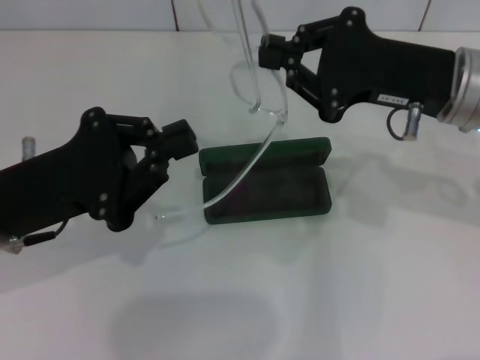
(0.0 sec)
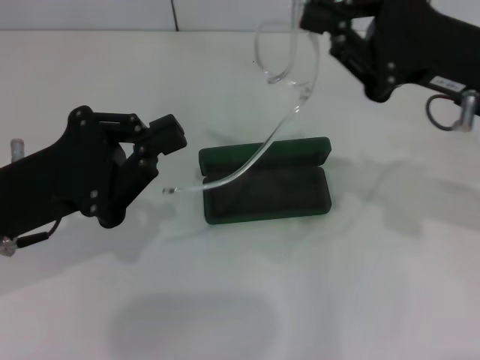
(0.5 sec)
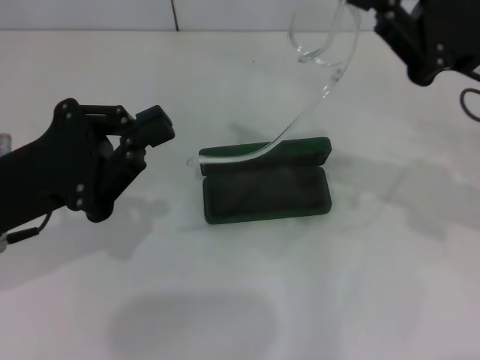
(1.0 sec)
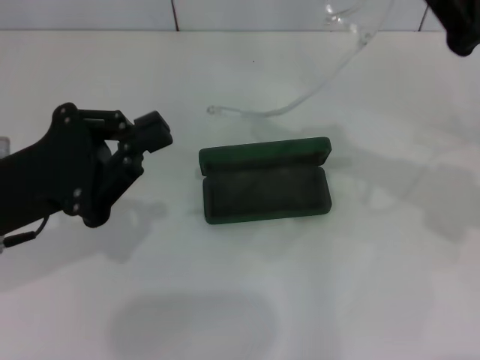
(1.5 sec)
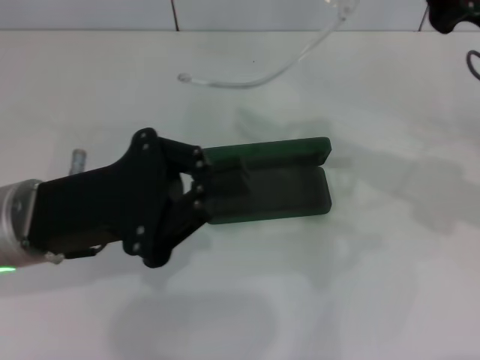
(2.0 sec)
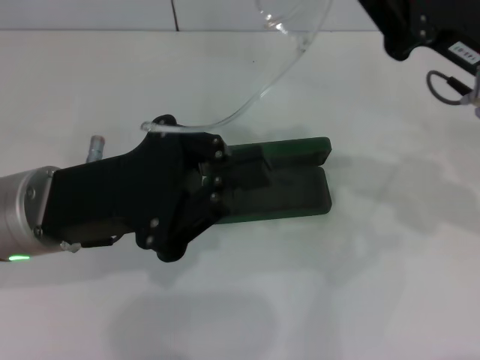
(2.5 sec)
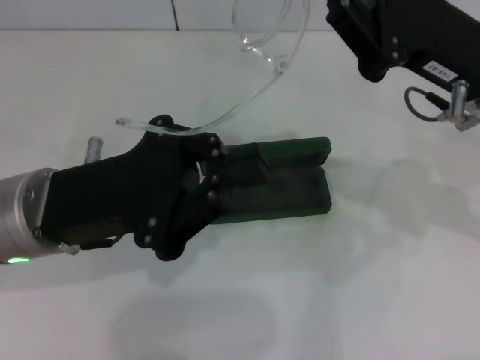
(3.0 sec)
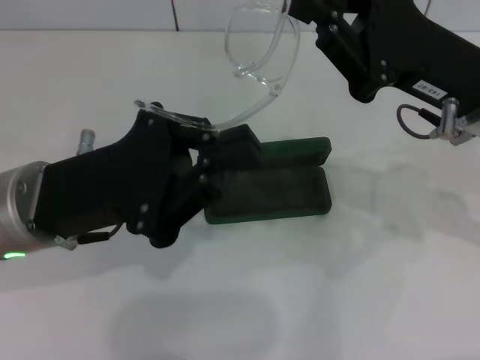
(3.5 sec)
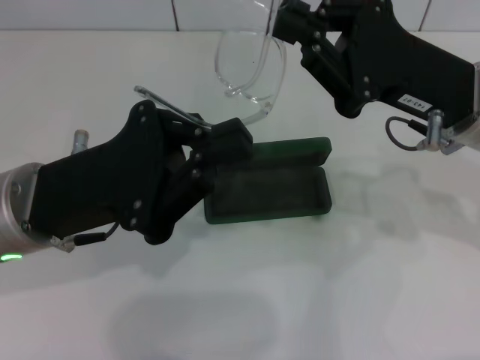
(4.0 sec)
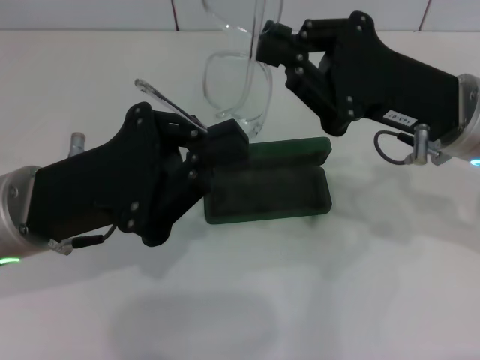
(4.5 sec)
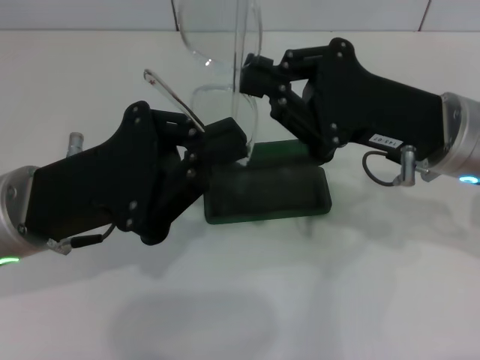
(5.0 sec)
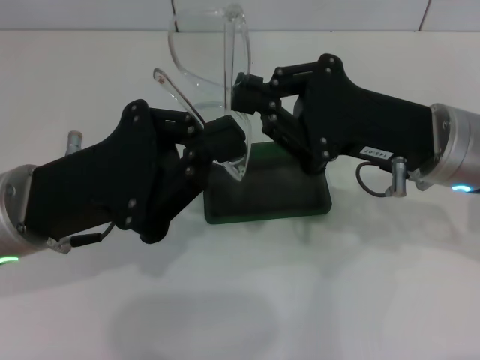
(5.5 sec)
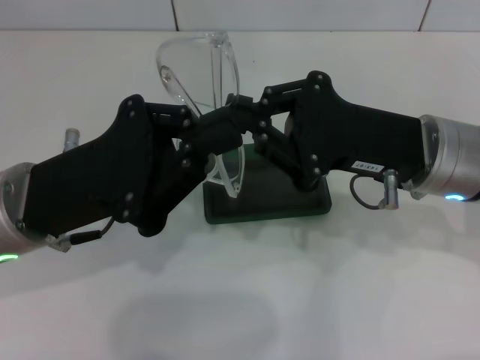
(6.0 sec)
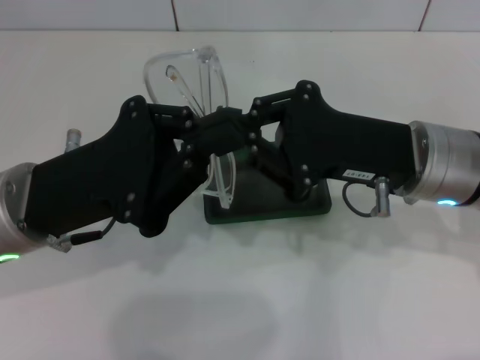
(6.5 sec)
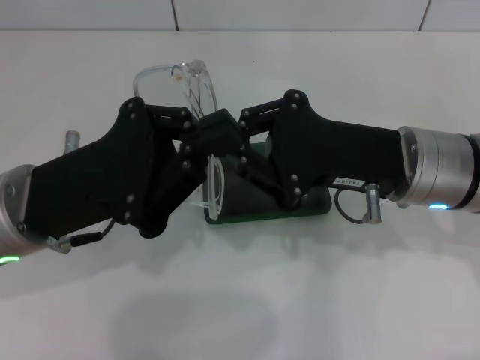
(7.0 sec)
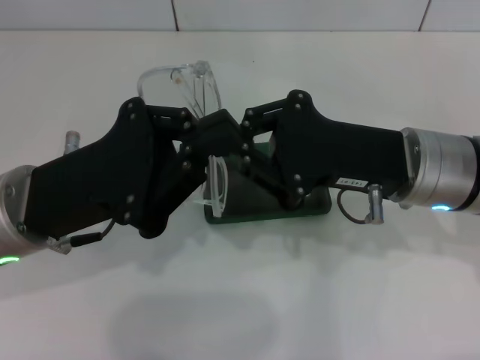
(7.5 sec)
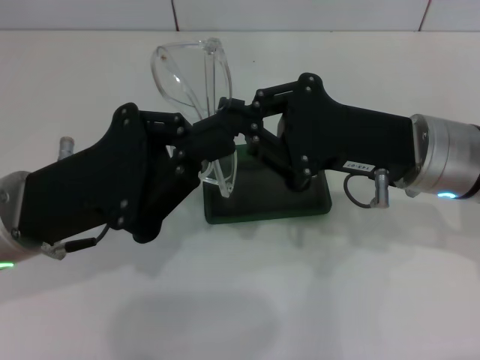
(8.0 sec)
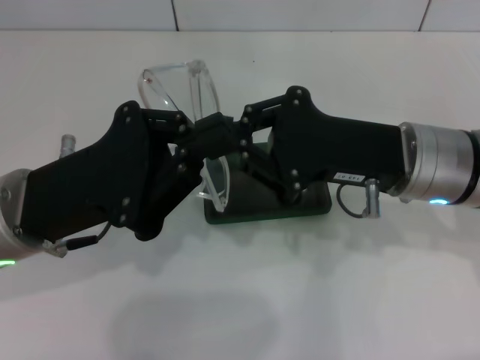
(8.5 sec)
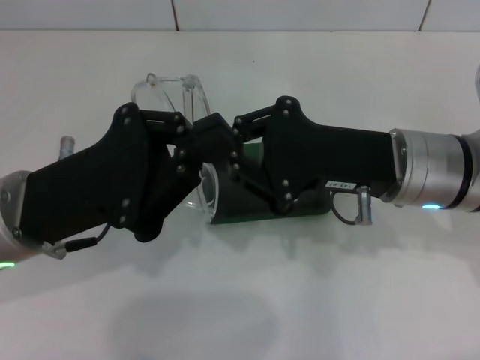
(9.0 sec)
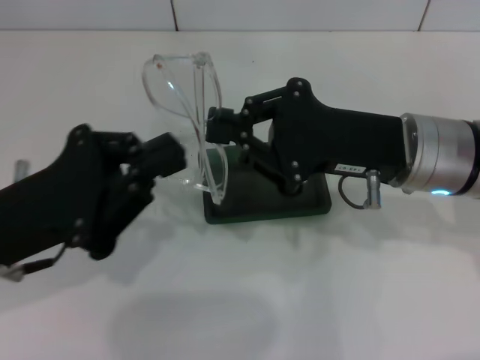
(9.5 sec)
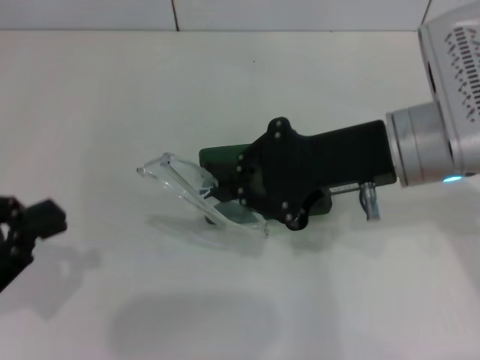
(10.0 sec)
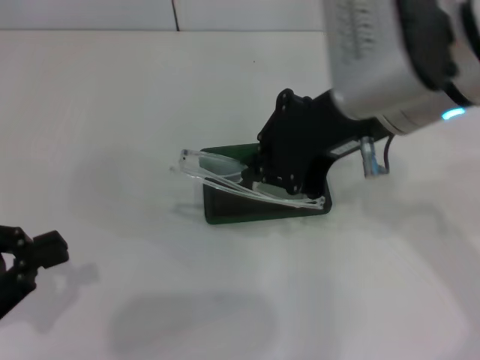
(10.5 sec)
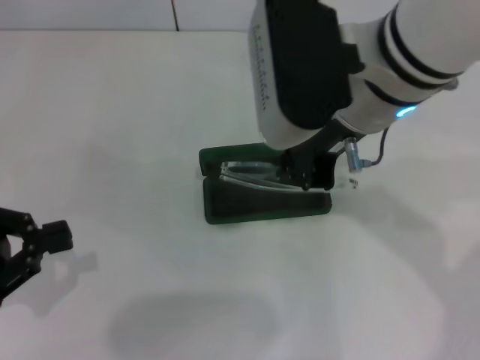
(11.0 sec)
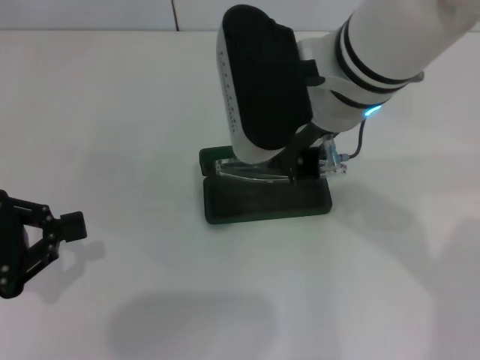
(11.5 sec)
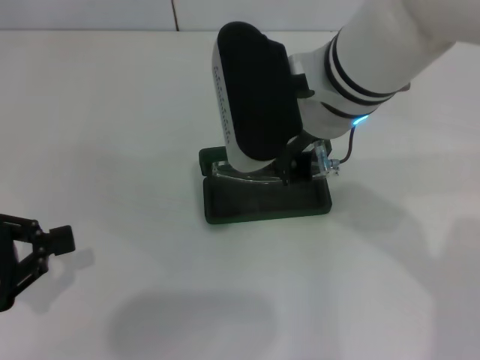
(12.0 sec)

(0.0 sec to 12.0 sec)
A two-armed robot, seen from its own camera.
Step, 0.0 sec - 9.0 sec: Fold the frame with your left hand.
2.0 sec - 4.0 sec: The right gripper moves approximately 5 cm.
6.0 sec - 8.0 sec: Both grippers stay put.
8.0 sec - 10.0 sec: The right gripper changes place by some 5 cm, while the left gripper heads to the left and backward, covering approximately 15 cm.
10.0 sec - 12.0 sec: The right gripper moves to the left, some 10 cm.

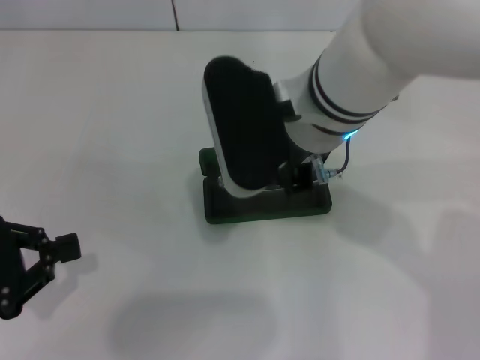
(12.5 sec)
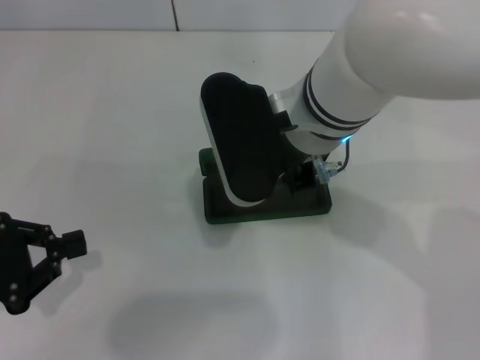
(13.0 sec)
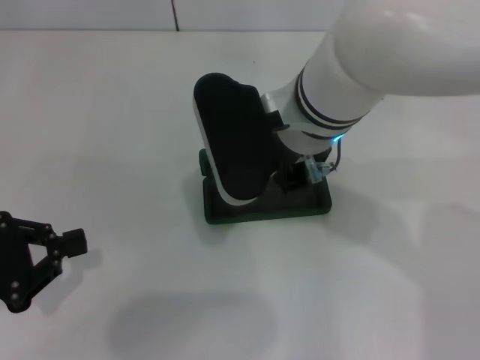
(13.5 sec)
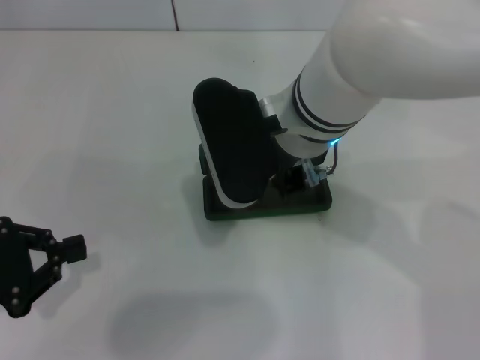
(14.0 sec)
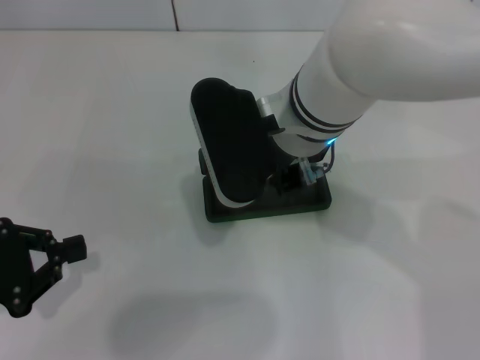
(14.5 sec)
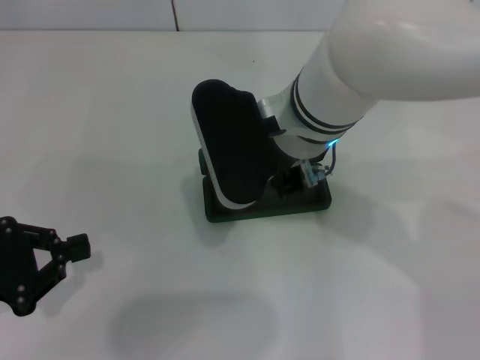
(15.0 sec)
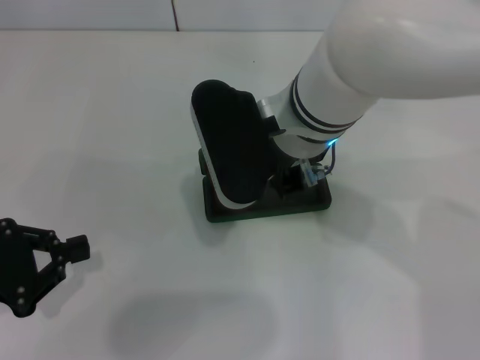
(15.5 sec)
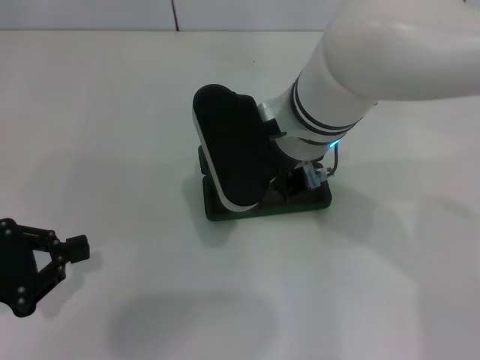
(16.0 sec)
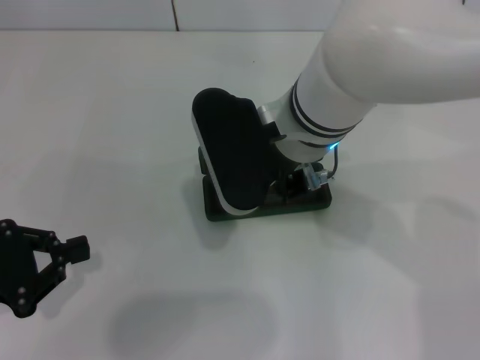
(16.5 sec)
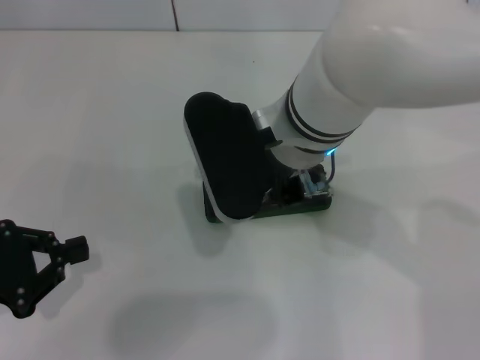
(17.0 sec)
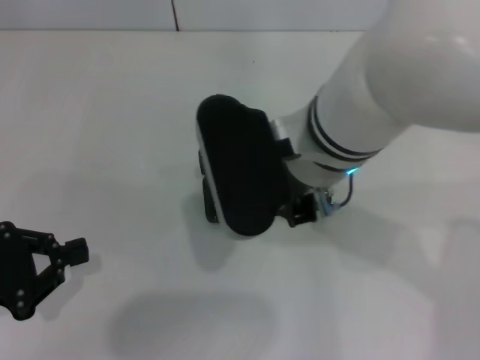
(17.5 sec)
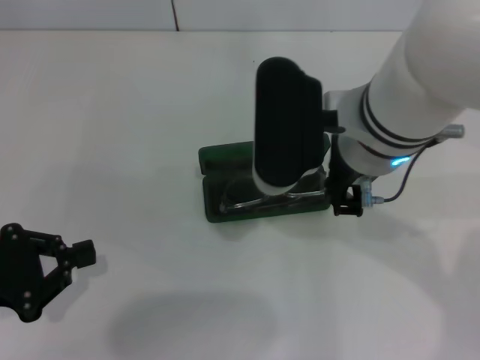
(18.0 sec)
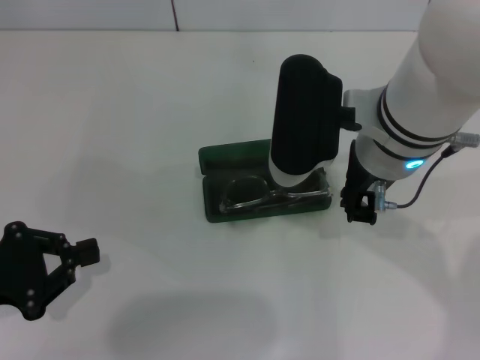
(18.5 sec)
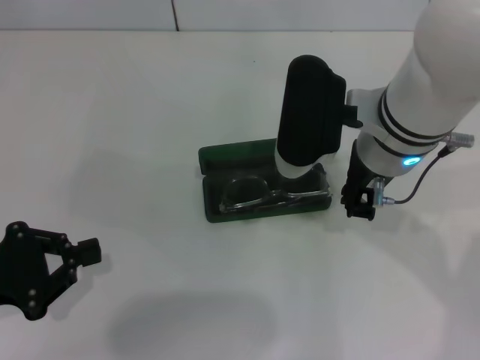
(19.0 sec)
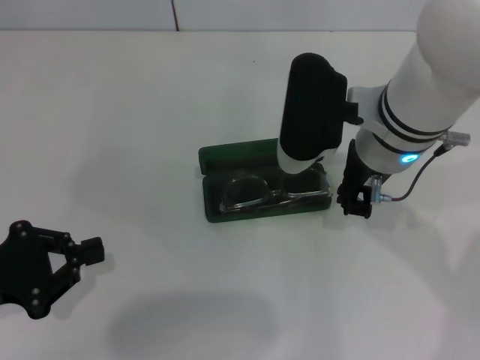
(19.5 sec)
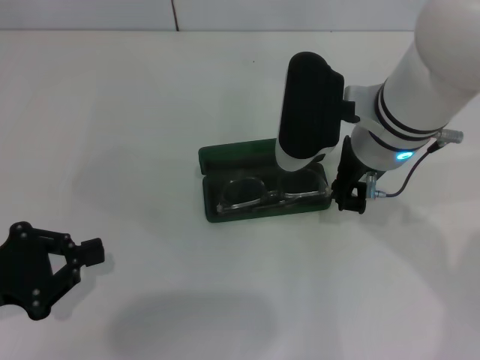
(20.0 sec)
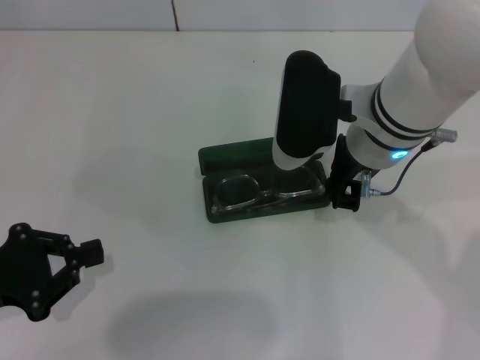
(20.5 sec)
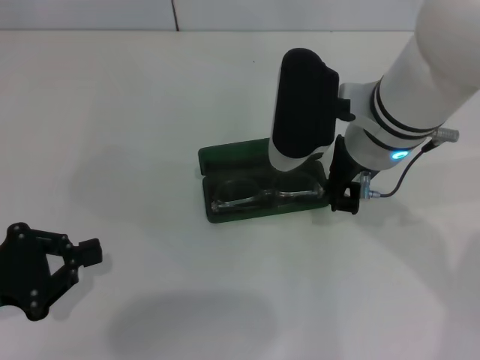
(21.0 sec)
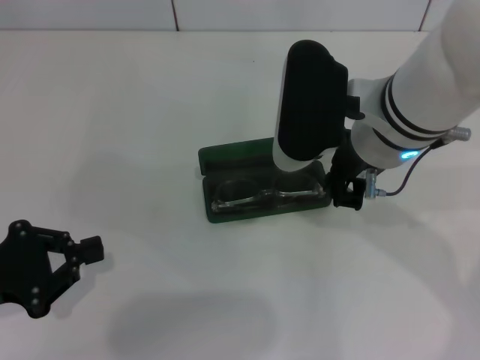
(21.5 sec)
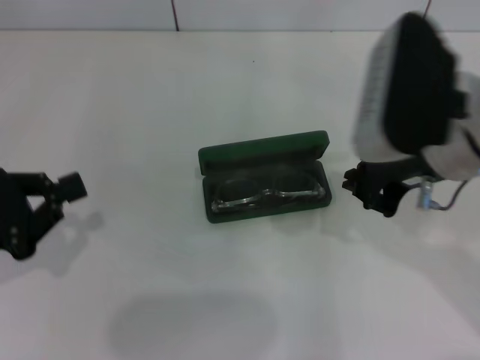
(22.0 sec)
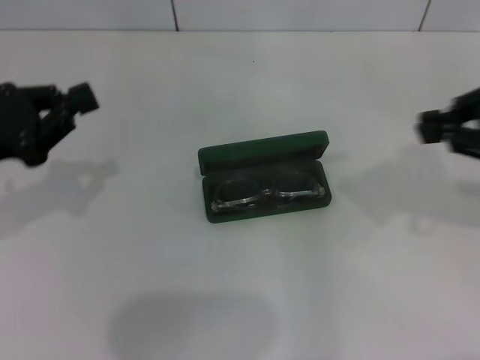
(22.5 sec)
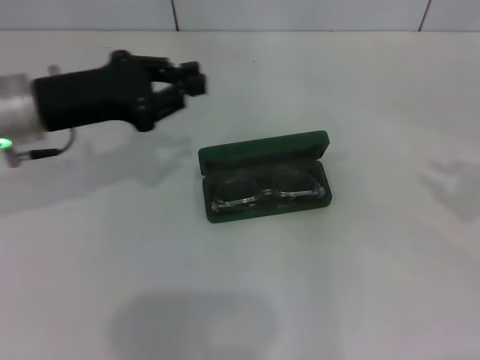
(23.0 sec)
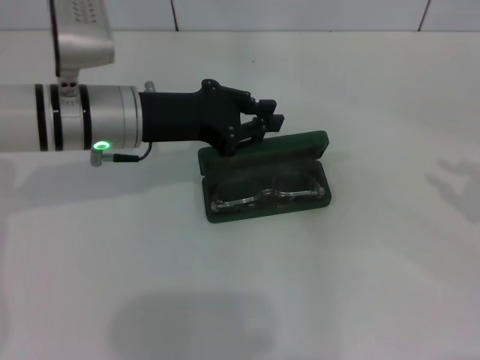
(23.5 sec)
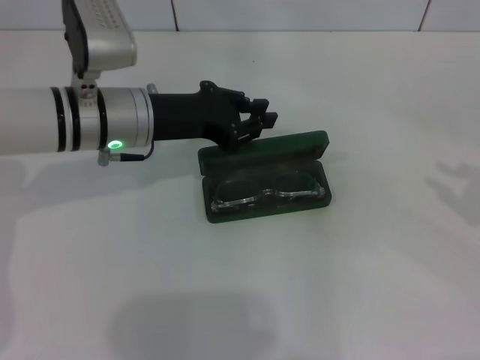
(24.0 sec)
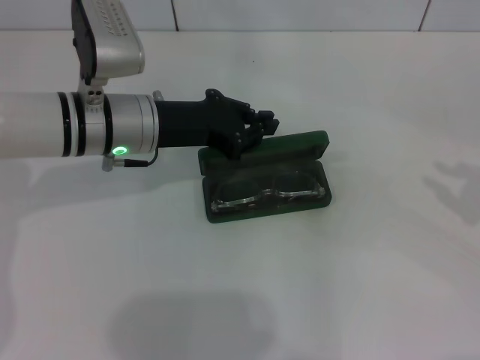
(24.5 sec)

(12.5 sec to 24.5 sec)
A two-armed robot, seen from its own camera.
Step, 12.5 sec - 17.5 sec: Put the glasses into the case with your right hand.
12.5 sec - 14.5 sec: The grippers stay close to where they were, moving slightly.
14.5 sec - 16.5 sec: Neither gripper changes place.
16.5 sec - 18.5 sec: The right gripper moves to the right, approximately 5 cm.
18.5 sec - 20.5 sec: The grippers make only small movements.
20.5 sec - 22.5 sec: The left gripper heads forward and upward, covering about 10 cm, while the right gripper goes about 20 cm to the right and upward.
22.5 sec - 24.5 sec: The left gripper is displaced to the right and forward by about 20 cm. Meanwhile the right gripper travels to the right and downward by roughly 15 cm.

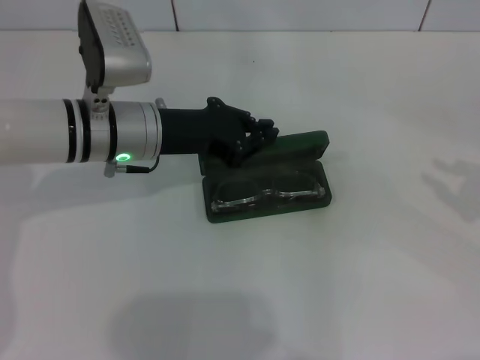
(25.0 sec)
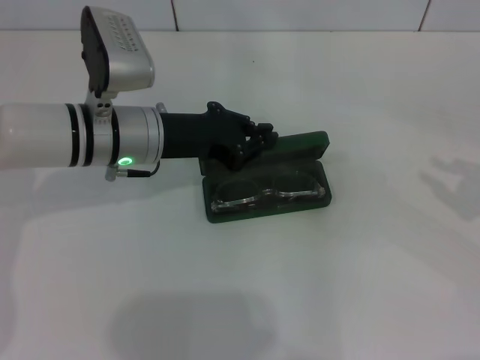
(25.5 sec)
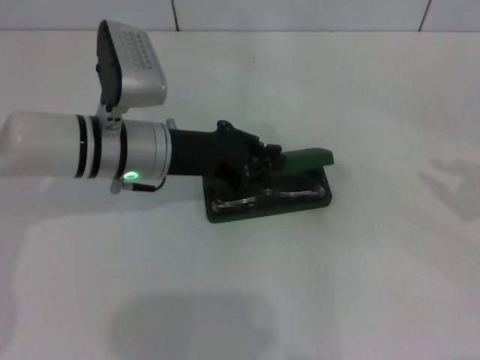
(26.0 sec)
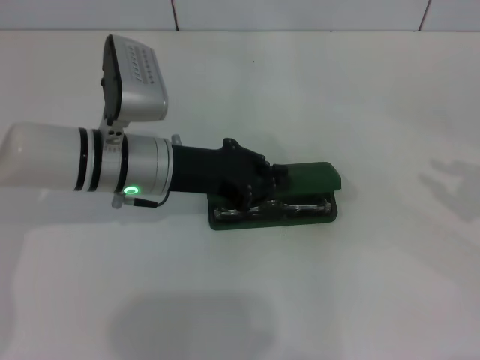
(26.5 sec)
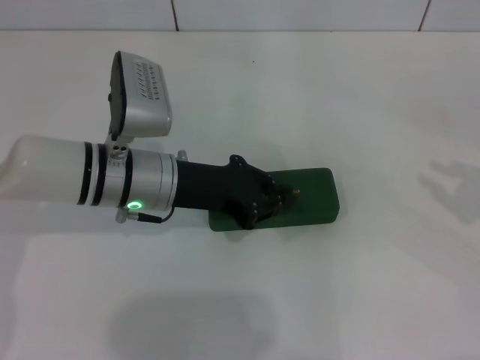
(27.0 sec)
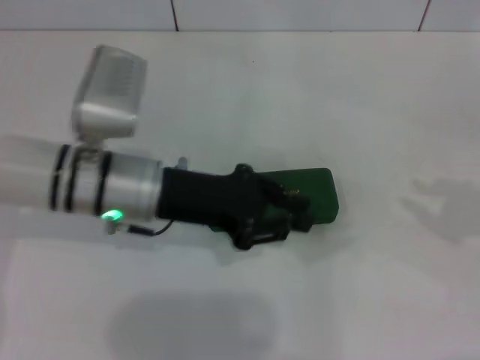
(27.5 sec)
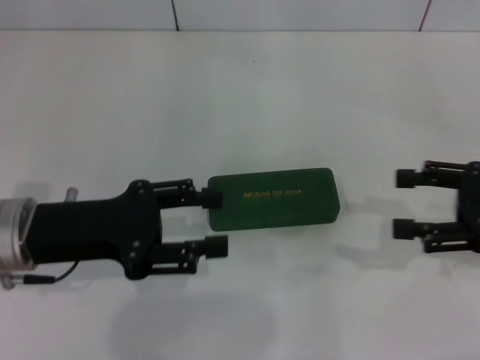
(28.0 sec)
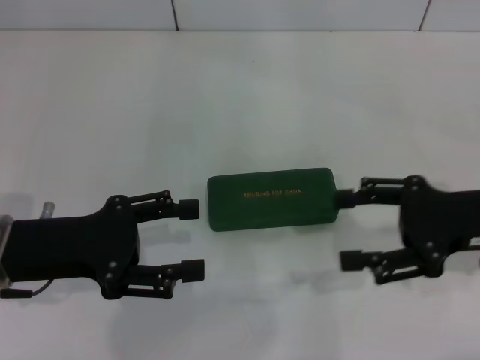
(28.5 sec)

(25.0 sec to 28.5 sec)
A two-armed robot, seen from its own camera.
Step, 25.0 sec - 27.0 sec: Close the glasses case with your left hand.
25.0 sec - 27.0 sec: There are only small adjustments of the grippers.
27.0 sec - 28.5 sec: The right gripper is displaced to the left and downward by roughly 15 cm, and opens its fingers; the left gripper shifts about 15 cm to the left and backward, and opens up.
